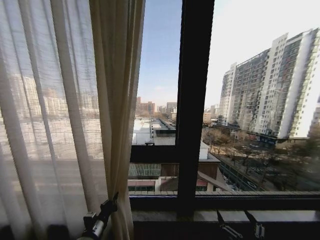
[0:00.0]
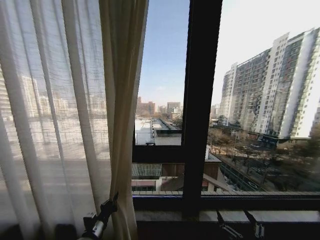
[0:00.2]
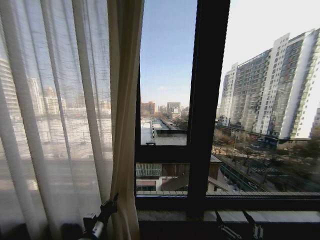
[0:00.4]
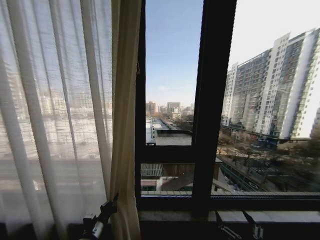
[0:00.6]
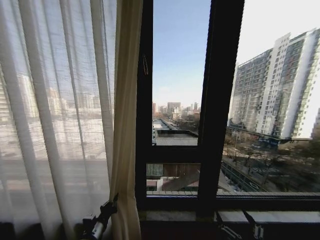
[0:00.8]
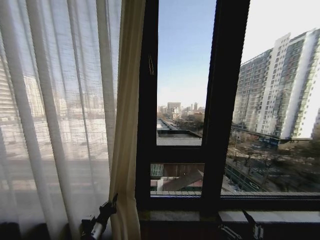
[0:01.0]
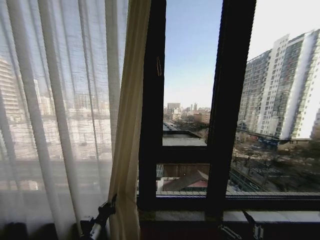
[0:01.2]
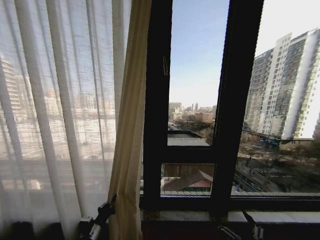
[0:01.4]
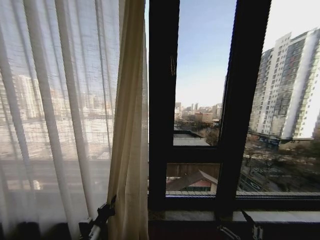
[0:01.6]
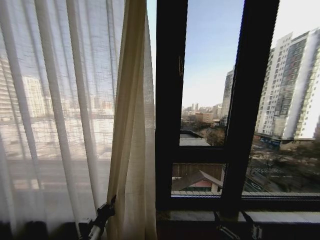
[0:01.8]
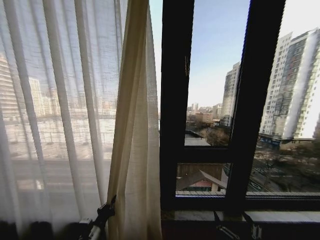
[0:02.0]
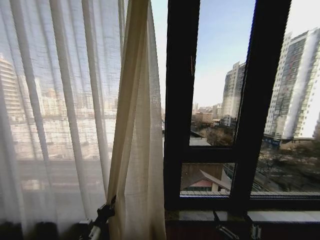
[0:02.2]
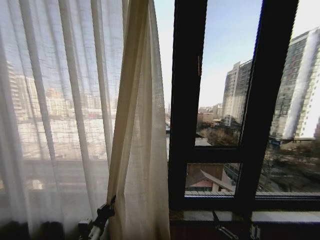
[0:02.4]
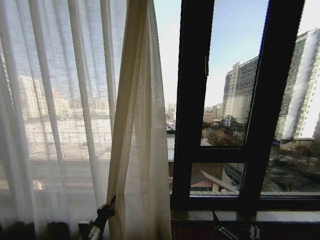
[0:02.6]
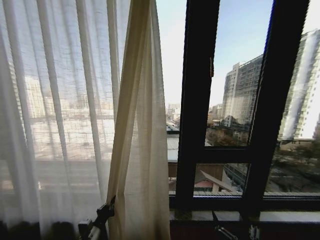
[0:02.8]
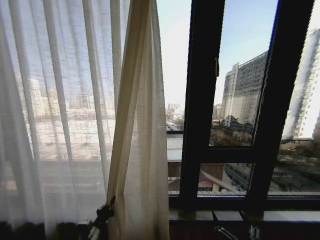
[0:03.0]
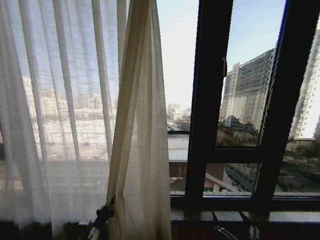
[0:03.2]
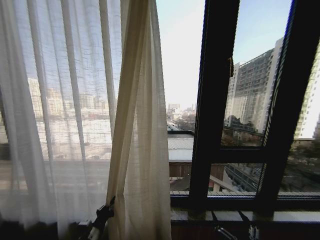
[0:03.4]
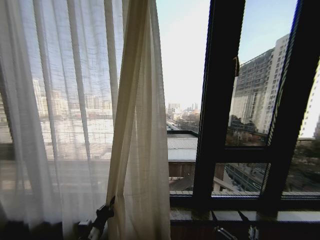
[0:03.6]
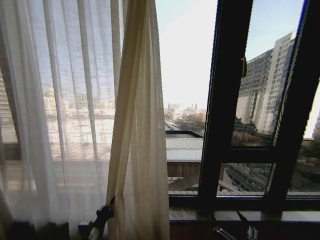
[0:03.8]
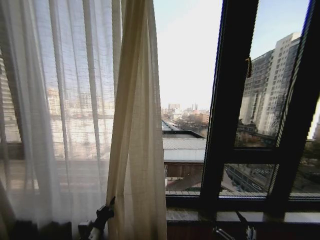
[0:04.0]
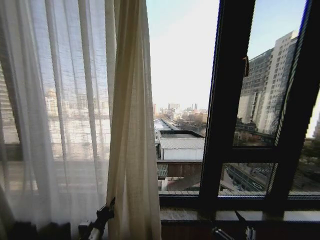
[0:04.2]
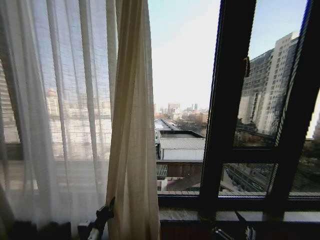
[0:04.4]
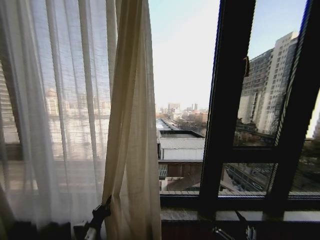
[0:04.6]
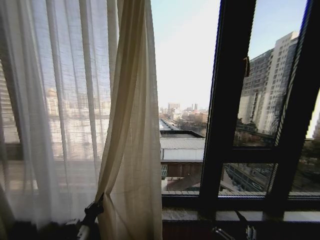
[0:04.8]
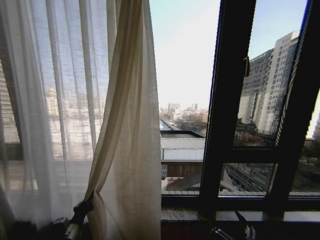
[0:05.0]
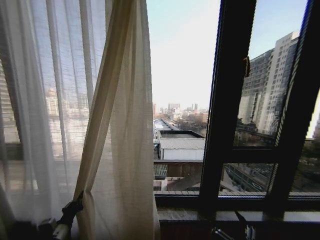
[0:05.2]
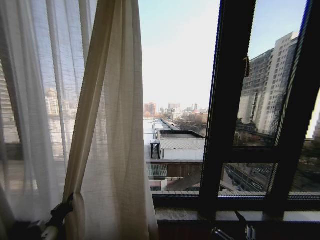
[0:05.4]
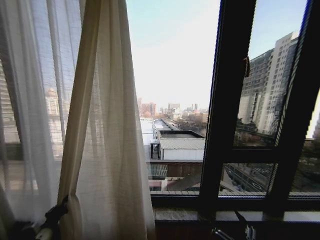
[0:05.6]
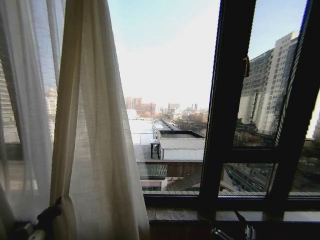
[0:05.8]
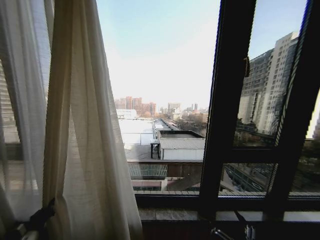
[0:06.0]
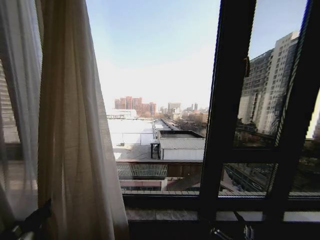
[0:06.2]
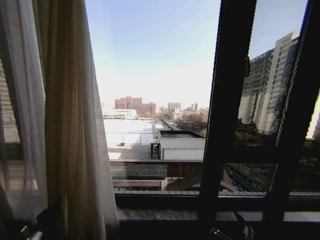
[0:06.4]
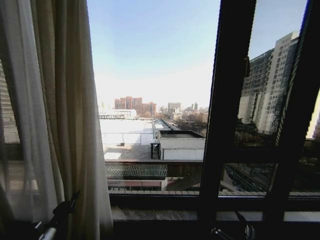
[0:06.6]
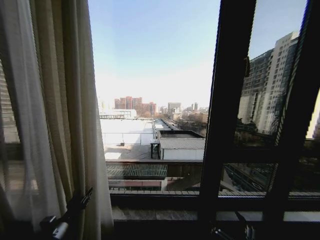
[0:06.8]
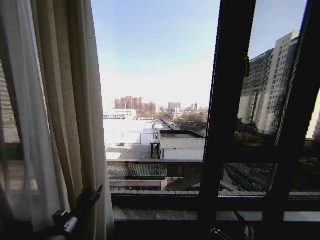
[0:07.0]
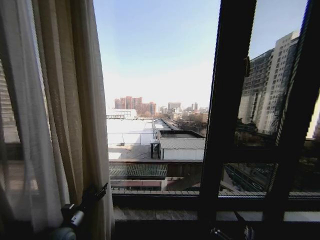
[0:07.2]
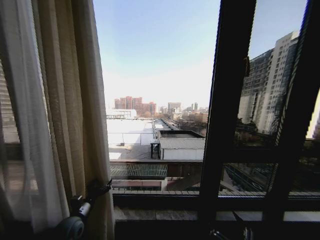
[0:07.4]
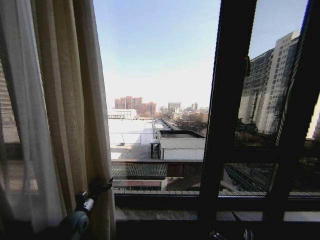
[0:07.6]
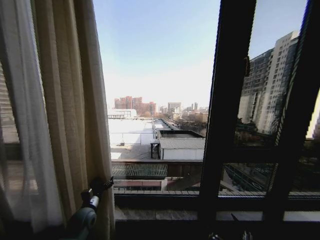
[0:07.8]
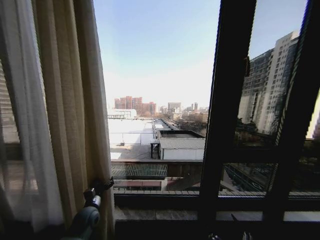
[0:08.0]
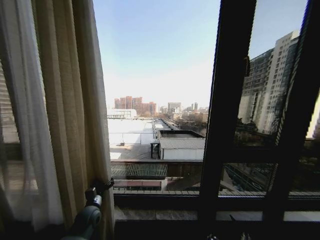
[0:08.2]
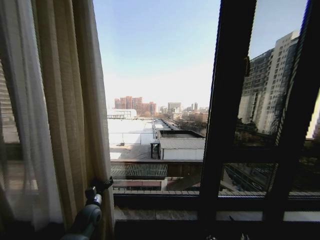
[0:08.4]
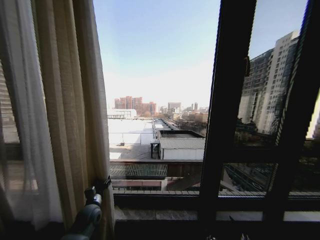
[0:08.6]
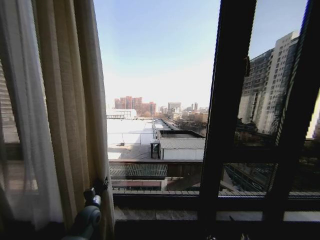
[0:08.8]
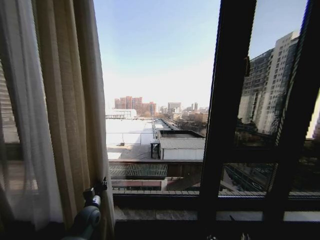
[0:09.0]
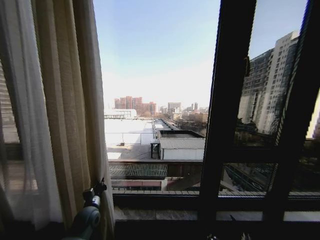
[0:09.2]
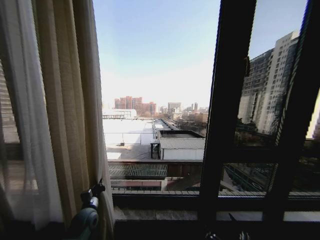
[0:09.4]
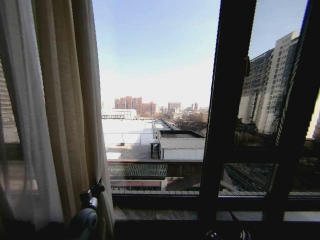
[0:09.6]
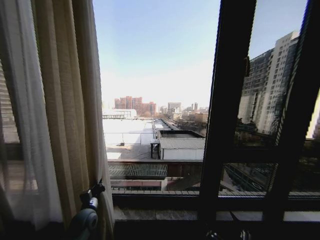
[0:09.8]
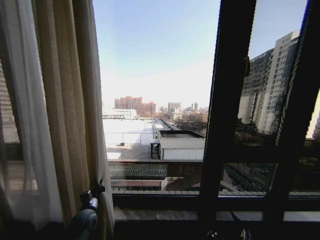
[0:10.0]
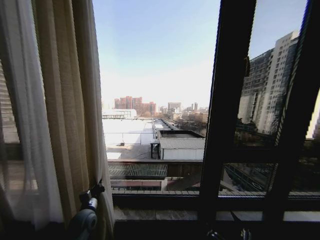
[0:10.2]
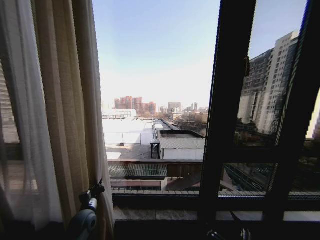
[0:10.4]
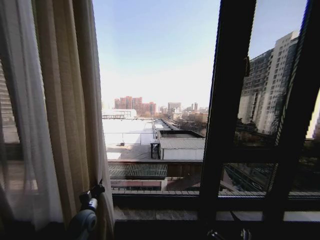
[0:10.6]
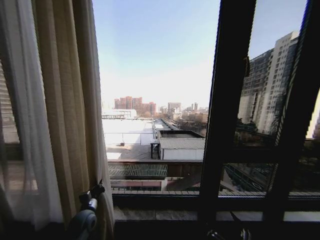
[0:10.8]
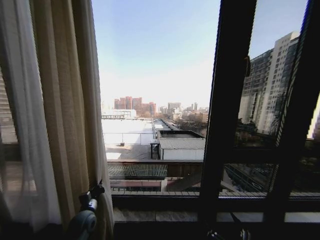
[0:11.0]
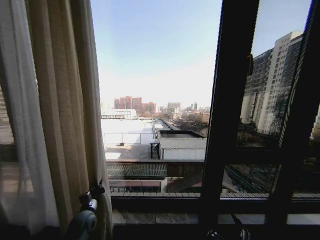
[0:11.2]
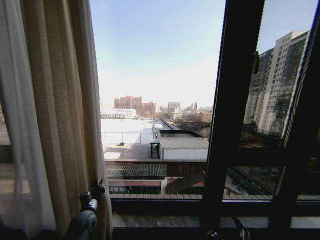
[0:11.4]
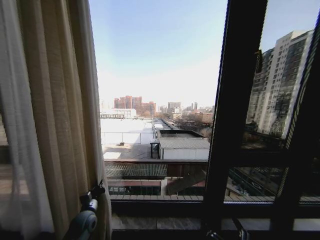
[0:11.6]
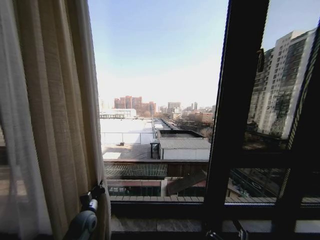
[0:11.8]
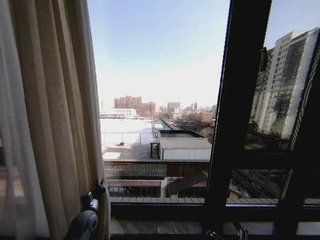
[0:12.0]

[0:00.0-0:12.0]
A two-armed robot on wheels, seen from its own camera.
Task of the whole recording: Open the curtains by pulling them apart, changing their state from closed to fully open.
0:04.4 to 0:06.0: The left gripper goes about 20 cm to the left.
0:06.0 to 0:07.6: The left gripper travels to the right and forward by about 20 cm, and opens up.
0:07.6 to 0:09.0: The left gripper closes its fingers.
0:09.0 to 0:10.4: The grippers move only a little.

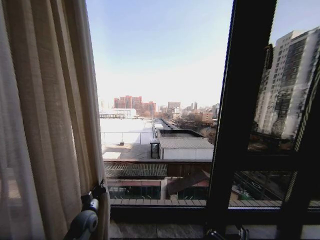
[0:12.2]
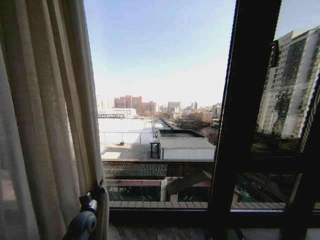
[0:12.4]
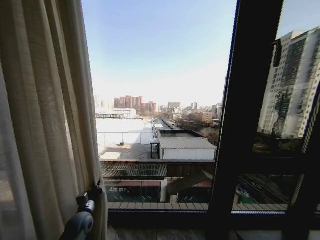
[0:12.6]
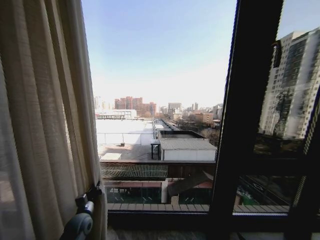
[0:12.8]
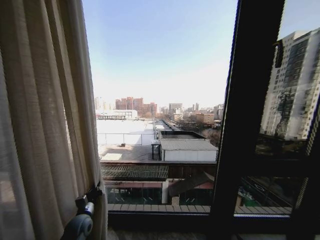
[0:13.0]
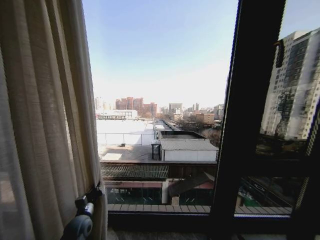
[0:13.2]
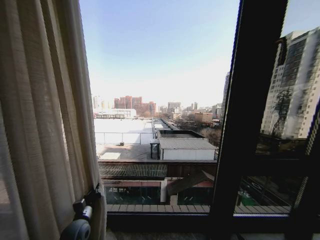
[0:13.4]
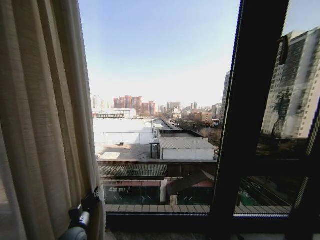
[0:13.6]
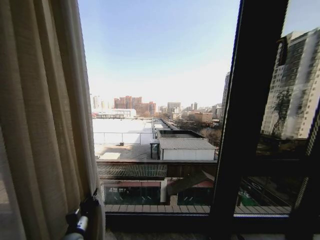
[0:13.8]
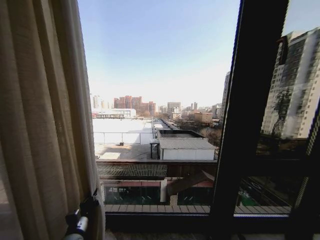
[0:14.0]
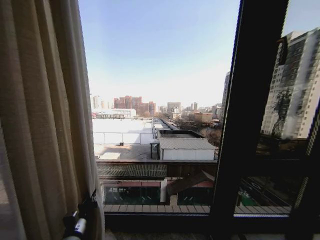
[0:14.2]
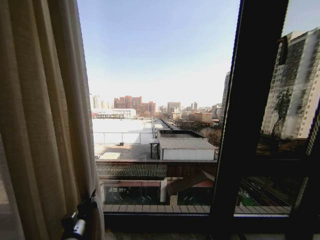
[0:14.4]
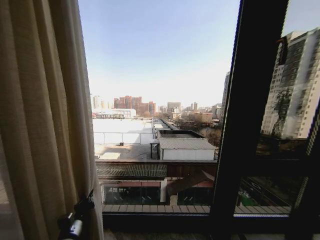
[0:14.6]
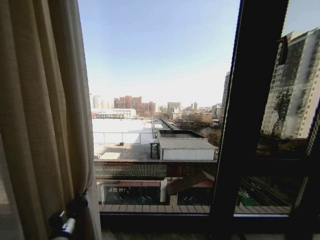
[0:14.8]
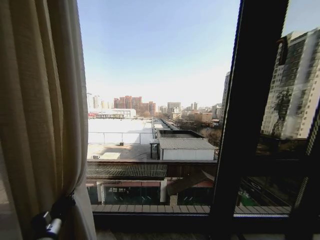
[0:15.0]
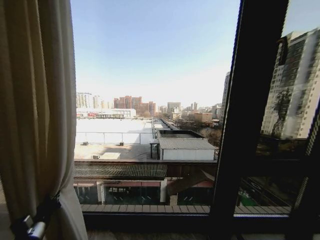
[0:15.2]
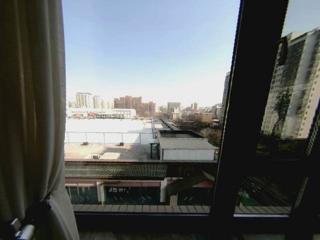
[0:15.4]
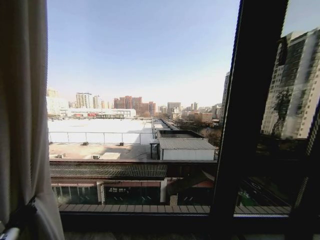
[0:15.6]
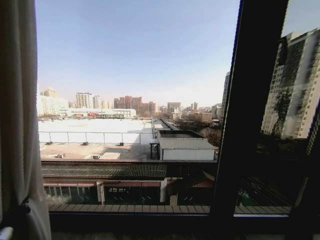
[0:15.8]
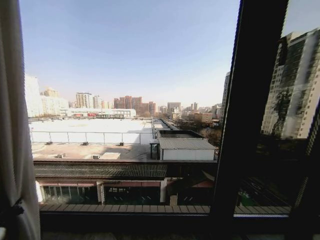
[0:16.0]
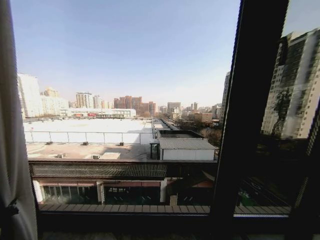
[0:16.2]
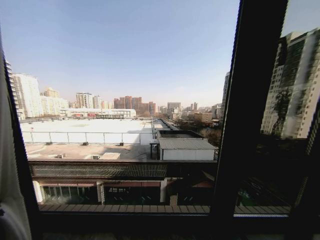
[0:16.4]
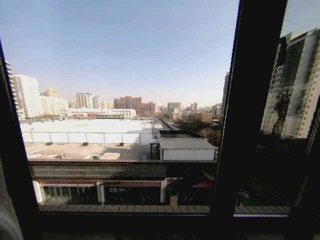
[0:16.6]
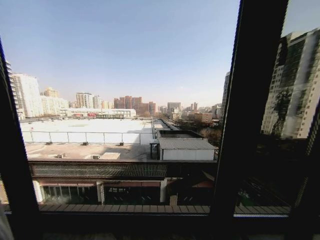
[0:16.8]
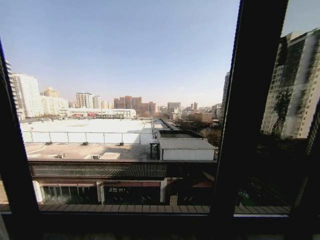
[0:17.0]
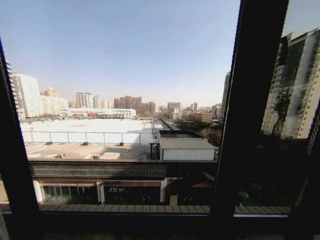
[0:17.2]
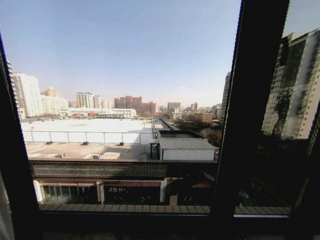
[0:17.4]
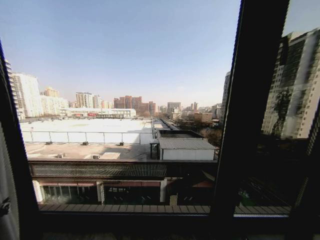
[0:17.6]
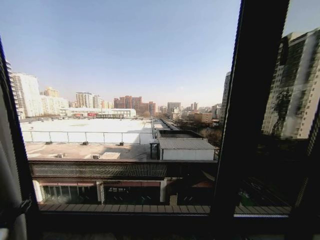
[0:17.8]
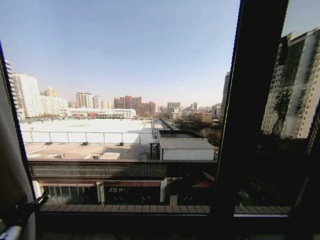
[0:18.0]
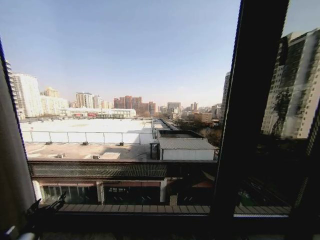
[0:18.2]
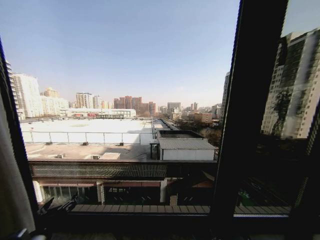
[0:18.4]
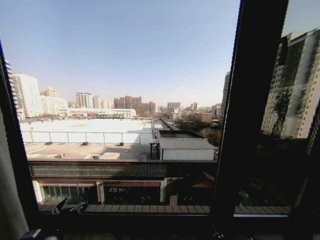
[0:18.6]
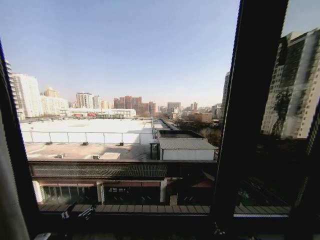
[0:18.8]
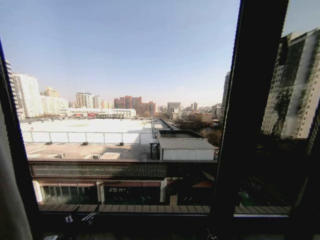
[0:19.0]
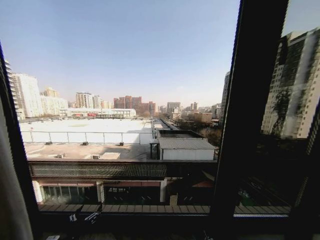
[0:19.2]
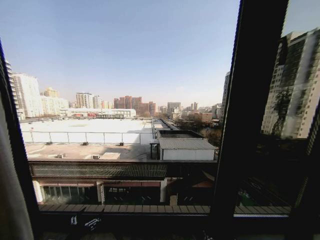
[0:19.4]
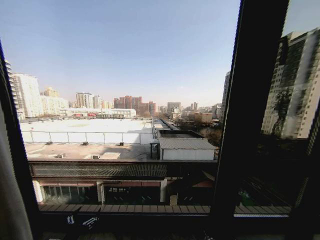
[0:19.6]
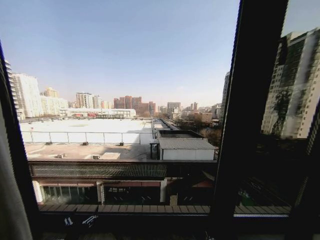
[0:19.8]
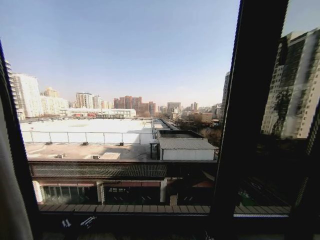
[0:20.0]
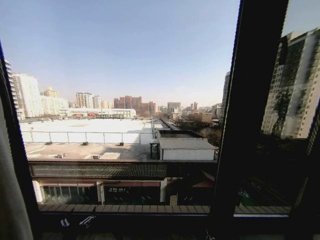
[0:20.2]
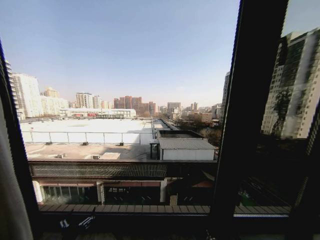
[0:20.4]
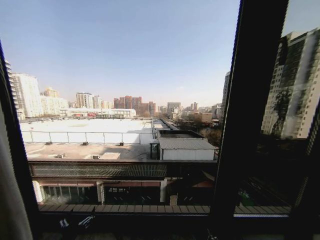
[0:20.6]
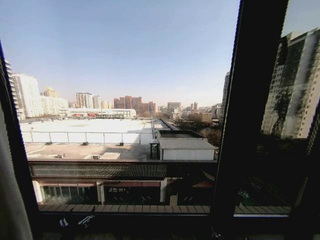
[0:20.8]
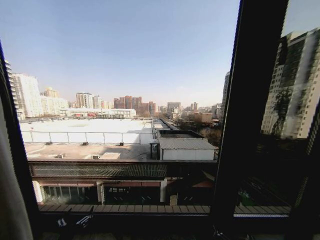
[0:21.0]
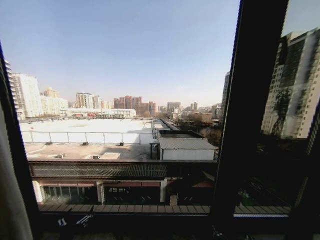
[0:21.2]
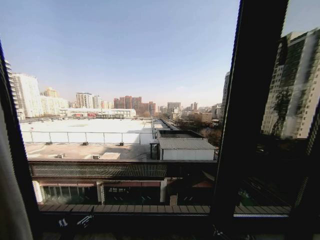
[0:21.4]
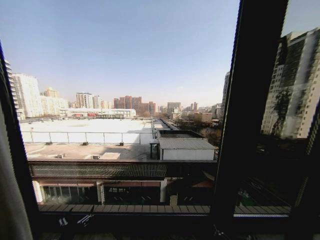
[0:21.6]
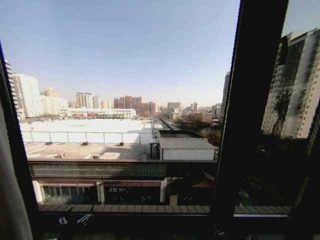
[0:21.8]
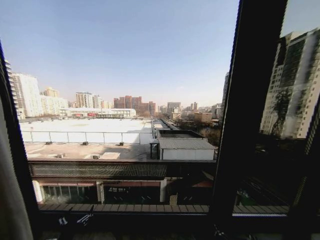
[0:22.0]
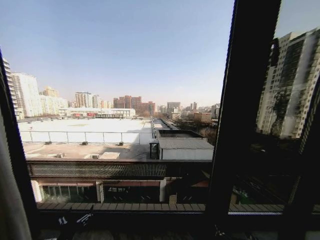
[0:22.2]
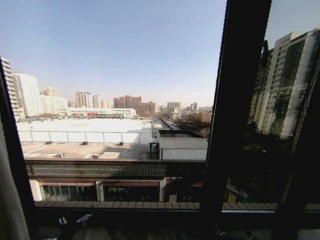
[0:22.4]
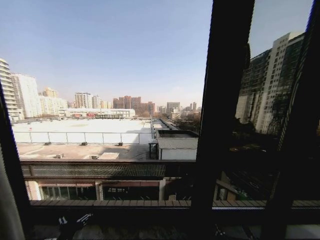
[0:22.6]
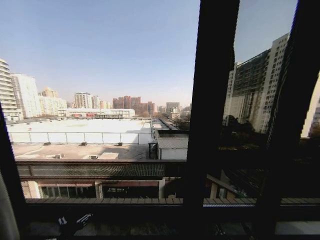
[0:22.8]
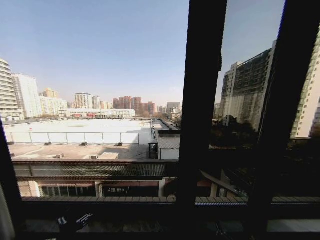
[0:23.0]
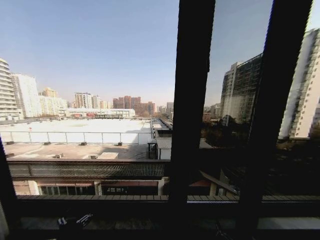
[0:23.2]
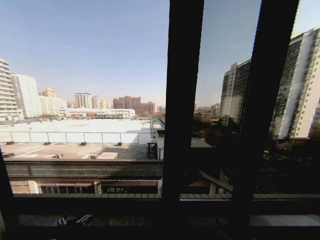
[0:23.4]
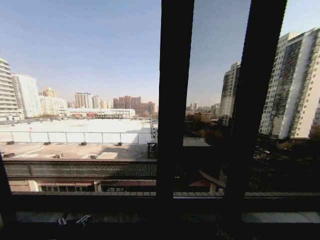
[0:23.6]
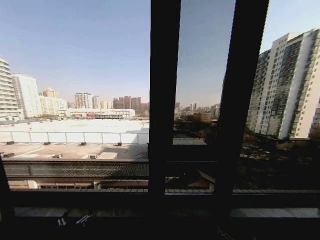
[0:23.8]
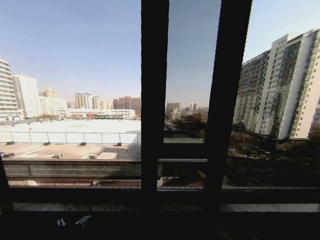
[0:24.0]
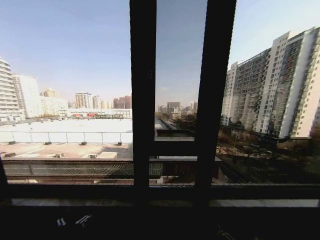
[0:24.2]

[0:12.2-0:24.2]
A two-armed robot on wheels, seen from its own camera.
Task of the whole recording: Open the curtains by pulling them apart, changing their state from closed to fully open.
0:12.2 to 0:13.8: The left gripper heads backward, covering approximately 10 cm.
0:13.8 to 0:15.2: The left gripper is displaced to the left by approximately 10 cm.
0:15.2 to 0:16.6: The left gripper heads to the left, covering about 25 cm.
0:16.6 to 0:18.2: The left gripper heads to the right, covering approximately 25 cm, and opens up.
0:18.2 to 0:19.8: The left gripper moves to the right and downward, some 10 cm.
